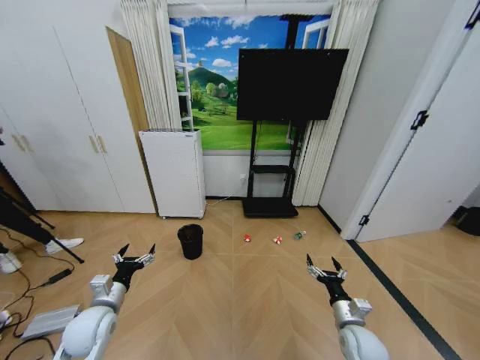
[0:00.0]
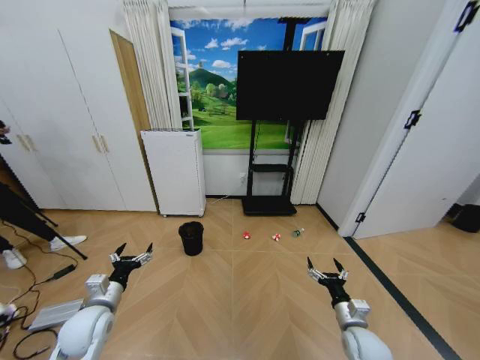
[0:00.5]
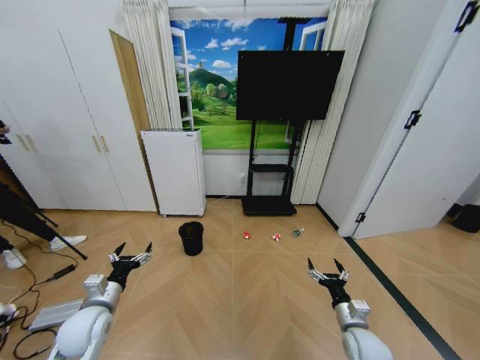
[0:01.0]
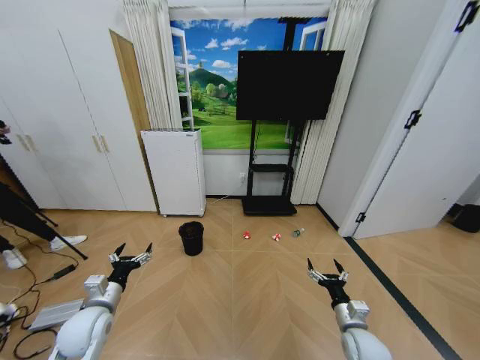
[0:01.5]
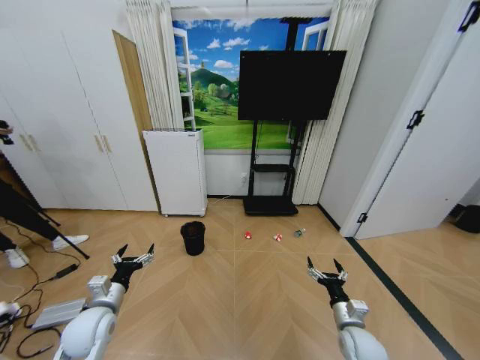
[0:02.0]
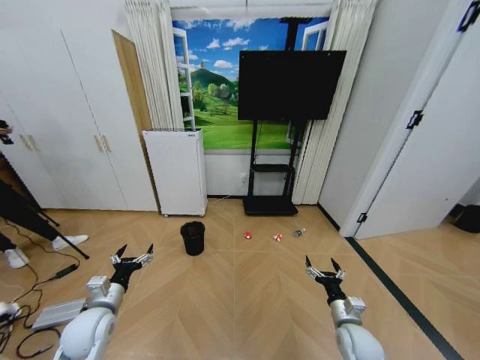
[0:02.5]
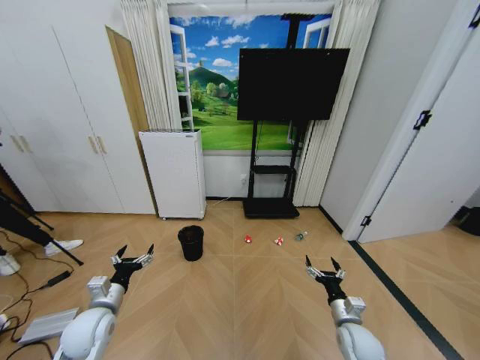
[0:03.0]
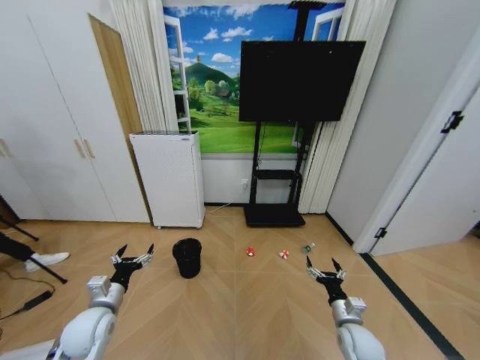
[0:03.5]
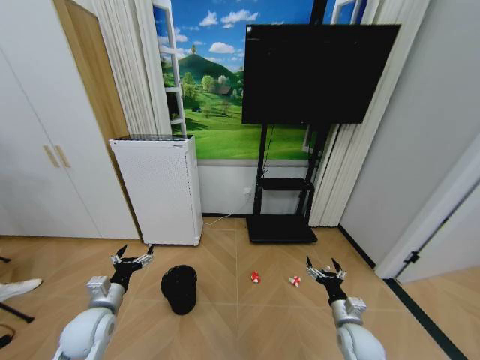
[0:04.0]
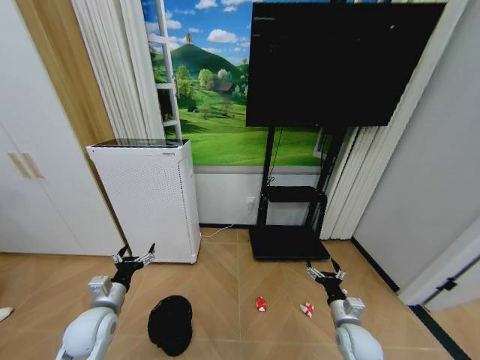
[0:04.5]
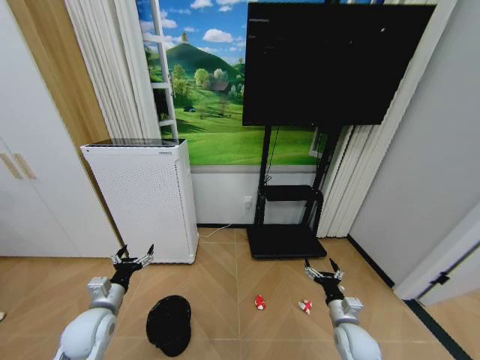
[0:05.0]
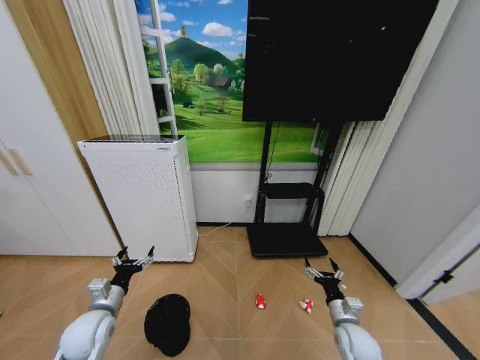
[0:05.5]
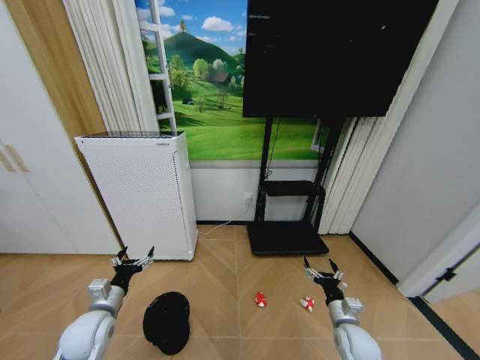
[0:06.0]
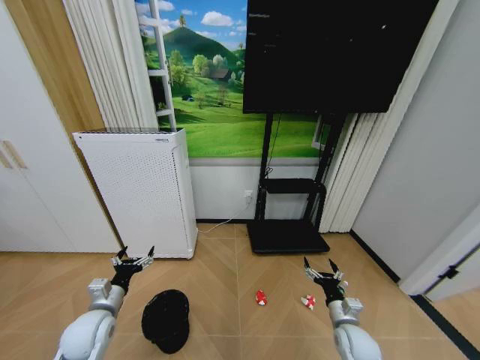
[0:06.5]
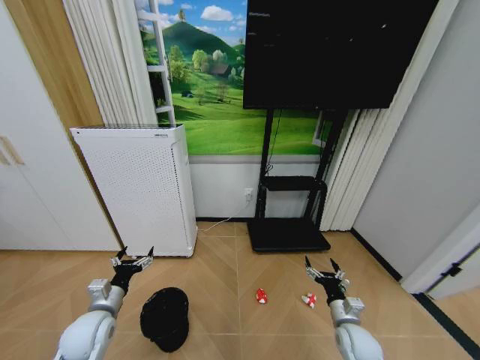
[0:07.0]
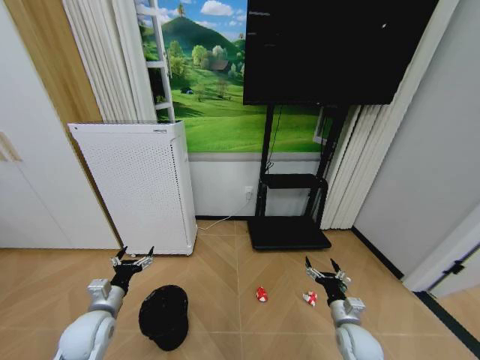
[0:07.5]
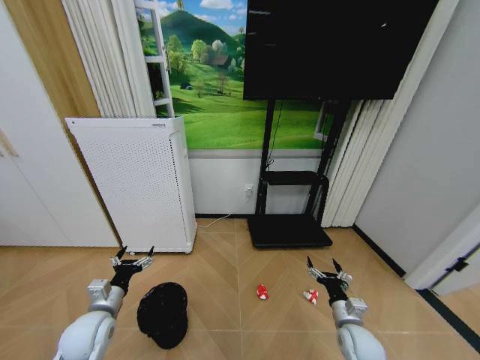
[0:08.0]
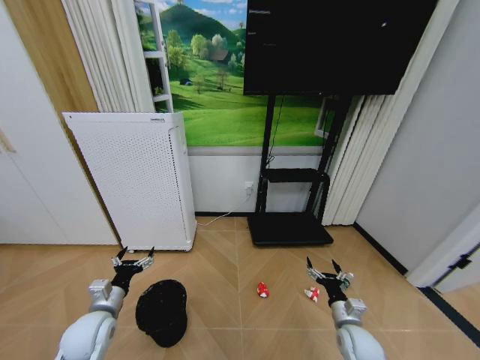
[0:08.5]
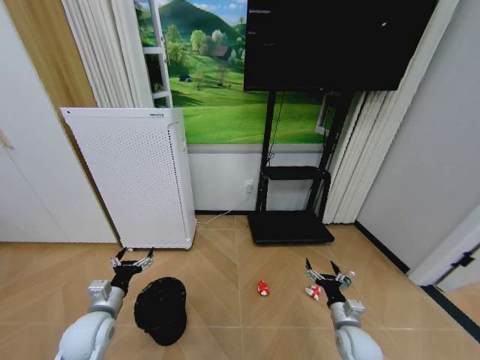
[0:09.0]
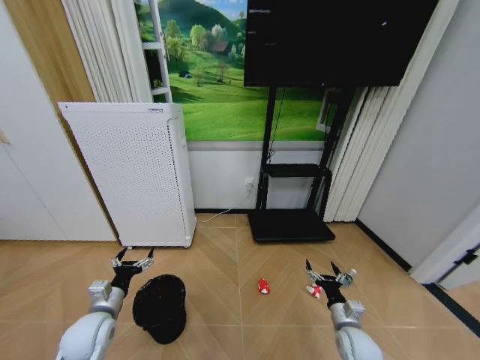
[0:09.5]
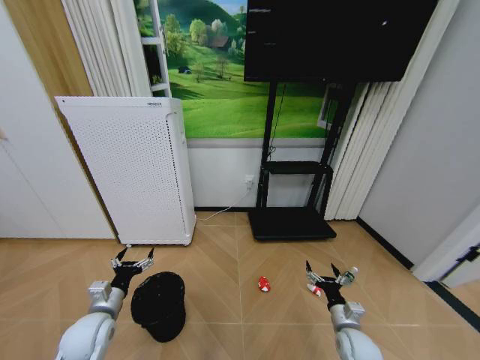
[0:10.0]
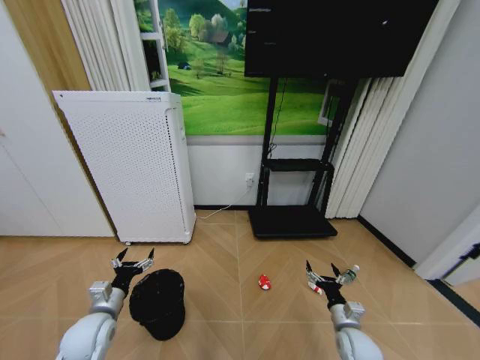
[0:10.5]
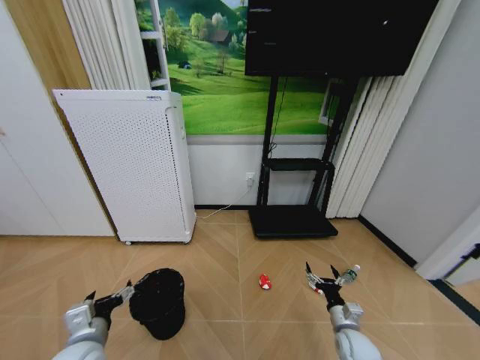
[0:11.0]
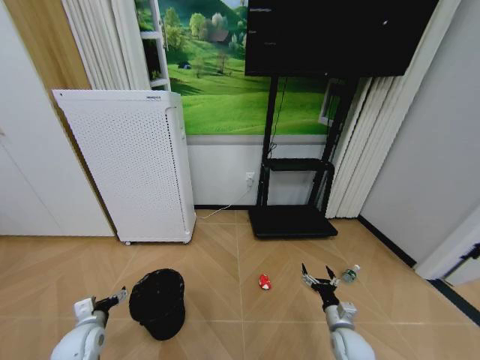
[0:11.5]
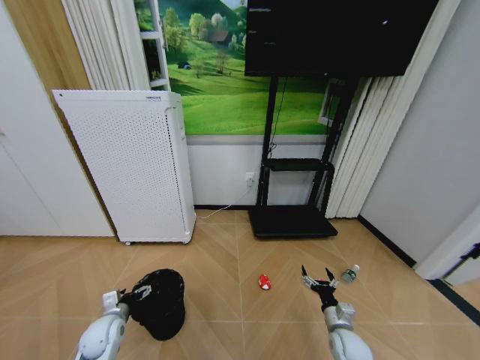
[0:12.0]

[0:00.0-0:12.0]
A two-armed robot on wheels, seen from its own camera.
Task of the whole recording: Pick up the trash bin and place the garbage on the floor into it.
0:06.0 to 0:08.0: Neither gripper changes place.
0:08.0 to 0:10.0: The grippers move only a little.
0:10.0 to 0:12.0: The left gripper heads downward, covering some 10 cm.

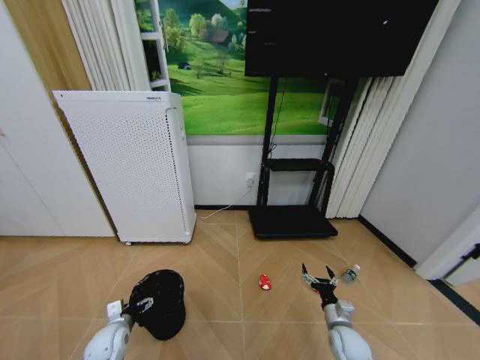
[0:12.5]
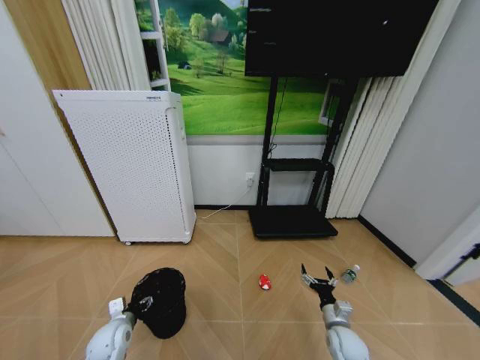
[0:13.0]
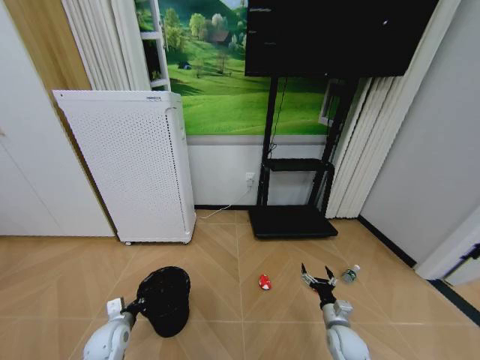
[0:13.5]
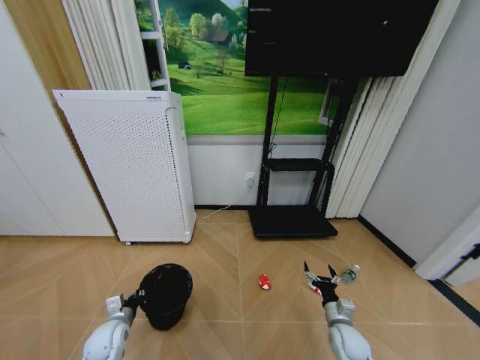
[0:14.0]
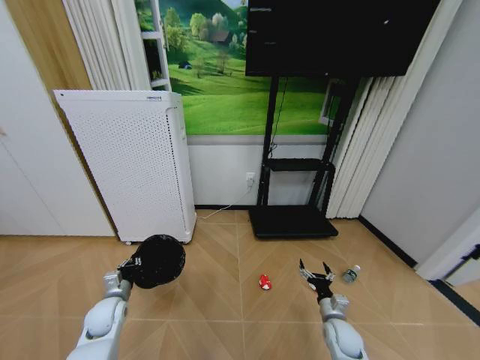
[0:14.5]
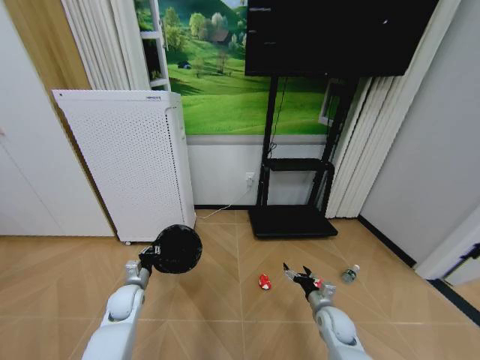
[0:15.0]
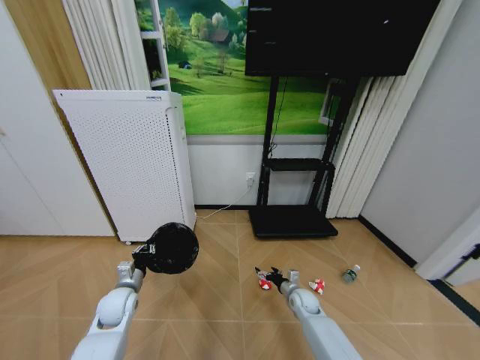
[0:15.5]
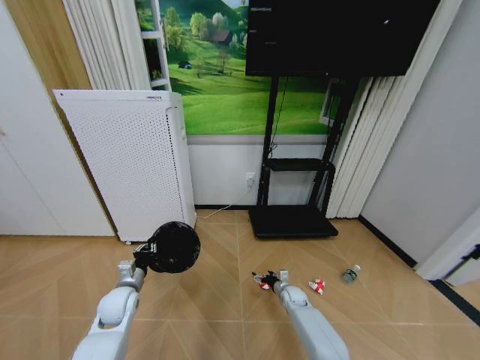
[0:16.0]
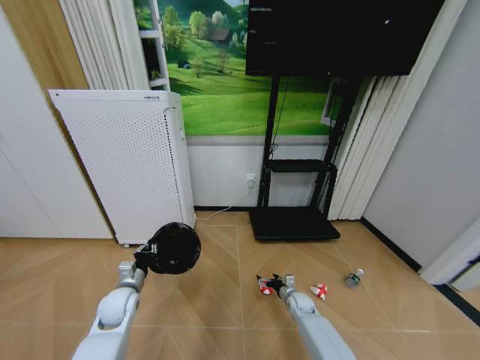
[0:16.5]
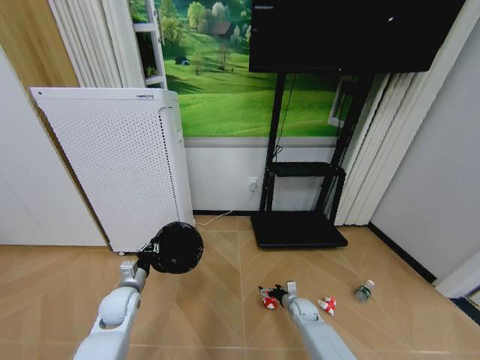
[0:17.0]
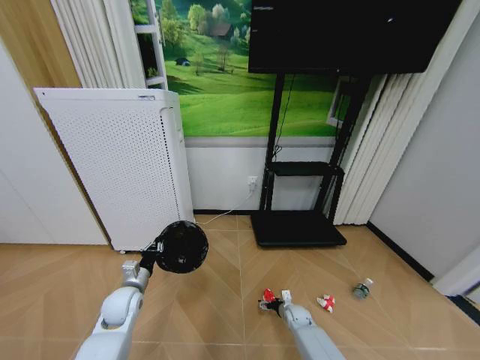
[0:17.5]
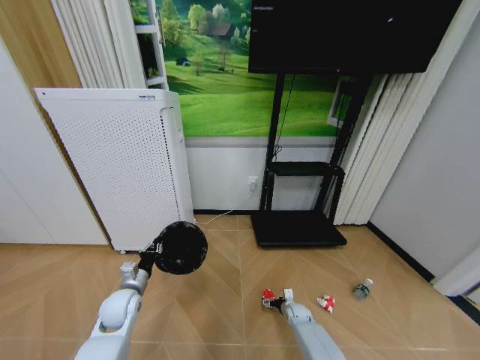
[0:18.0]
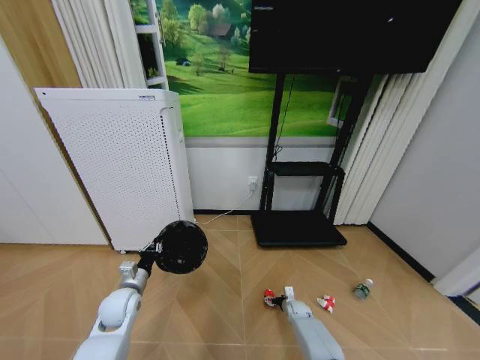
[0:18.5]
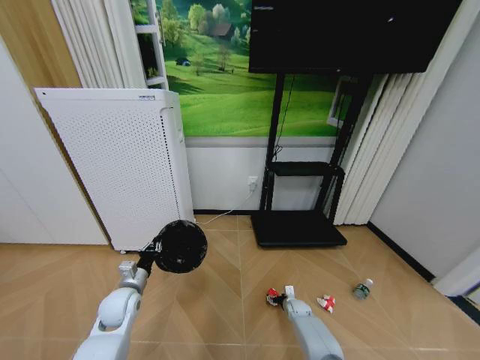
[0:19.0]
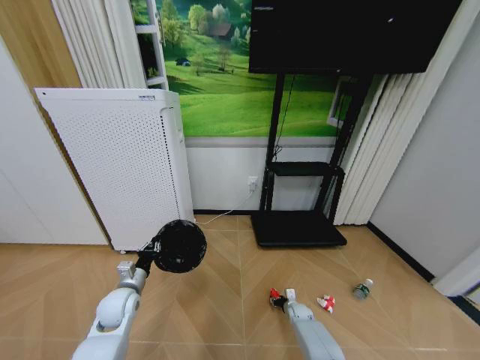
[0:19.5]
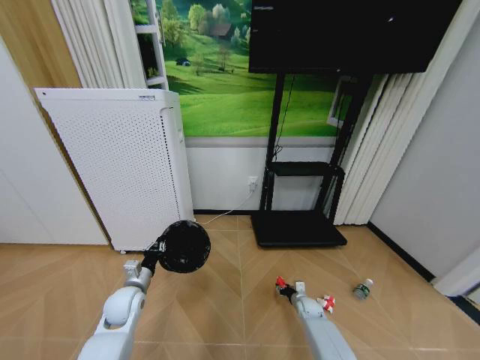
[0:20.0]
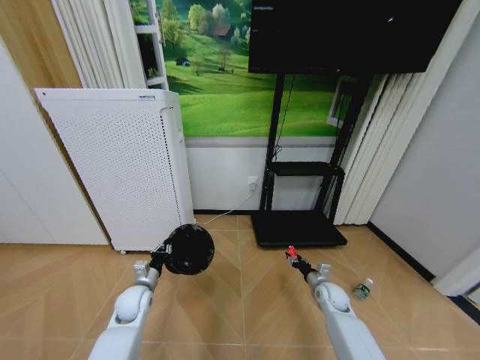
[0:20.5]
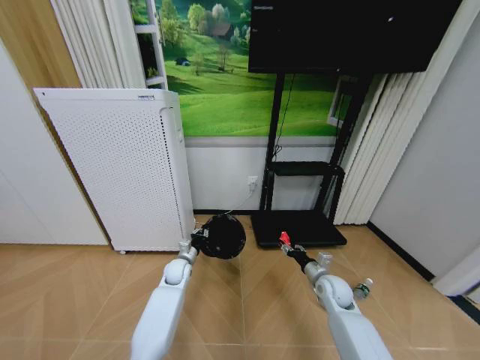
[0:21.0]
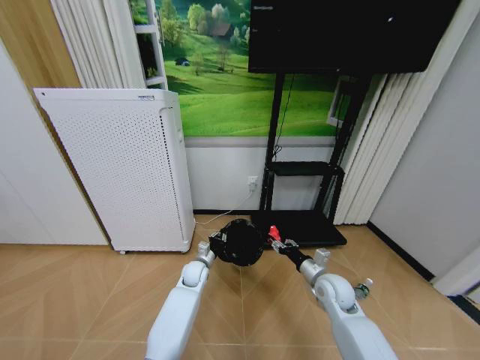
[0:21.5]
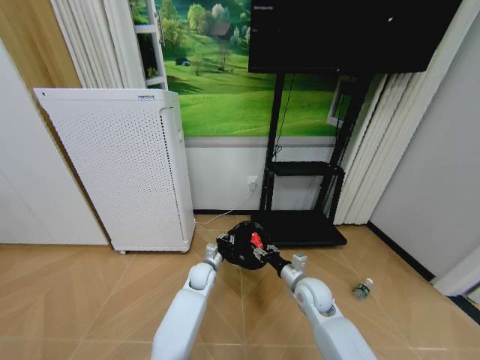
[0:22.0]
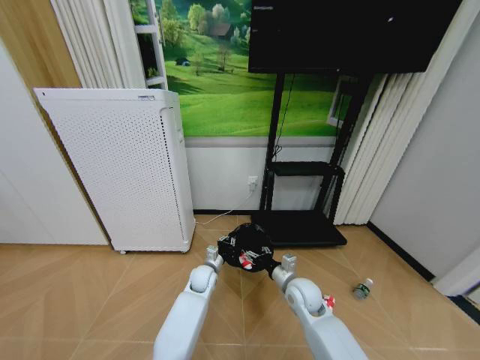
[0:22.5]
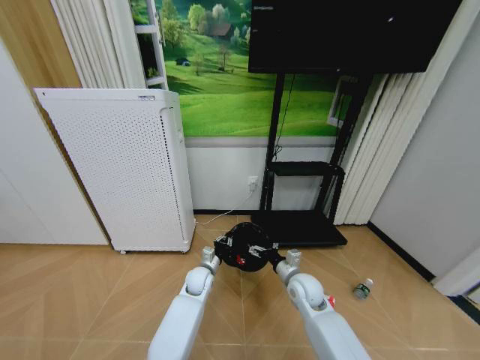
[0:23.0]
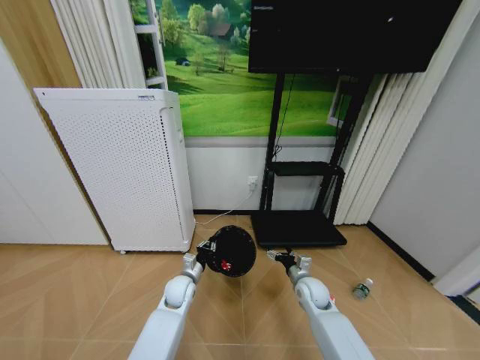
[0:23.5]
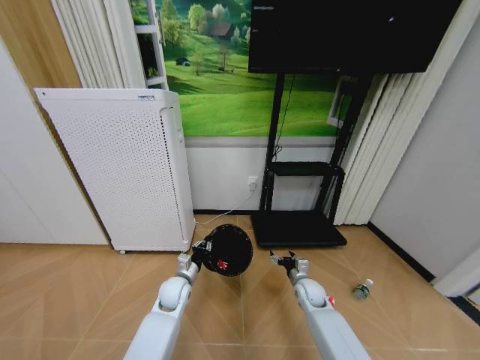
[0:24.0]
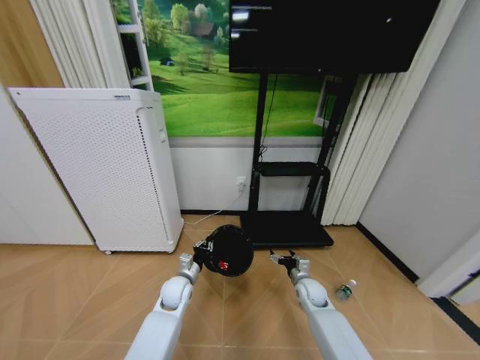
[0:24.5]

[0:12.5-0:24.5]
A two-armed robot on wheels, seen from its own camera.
Task of the whole recording: Pick up the trash bin and place the garbage on the floor into it.
0:12.5 to 0:14.5: The left gripper is displaced forward by some 5 cm, and closes.
0:14.5 to 0:16.5: The left gripper changes place by roughly 5 cm. The right gripper travels forward, downward and to the left by about 15 cm.
0:16.5 to 0:18.5: The right gripper is displaced downward by some 5 cm.
0:18.5 to 0:20.5: The right gripper is displaced upward by about 15 cm, and closes.
0:20.5 to 0:22.5: The right gripper goes about 15 cm to the left and upward, while the left gripper goes about 20 cm to the right and forward.
0:22.5 to 0:24.5: The right gripper heads downward and to the right, covering some 10 cm, and opens, while the left gripper moves to the left and backward, roughly 10 cm.

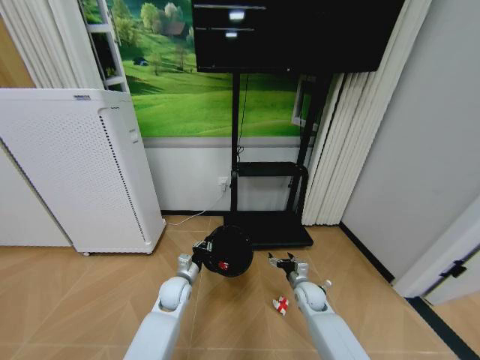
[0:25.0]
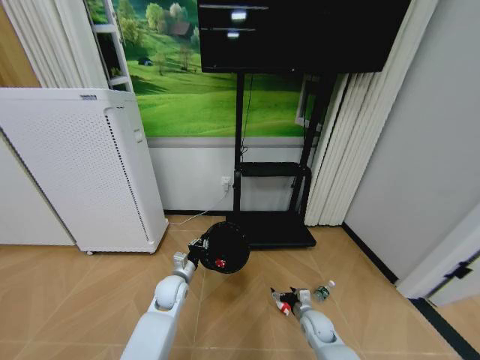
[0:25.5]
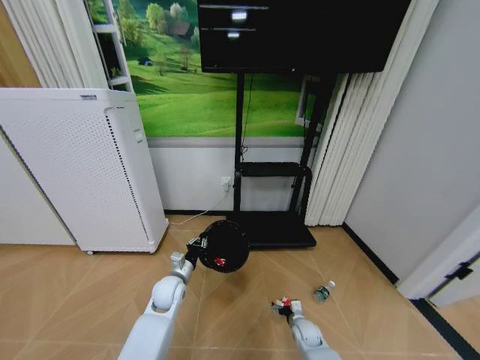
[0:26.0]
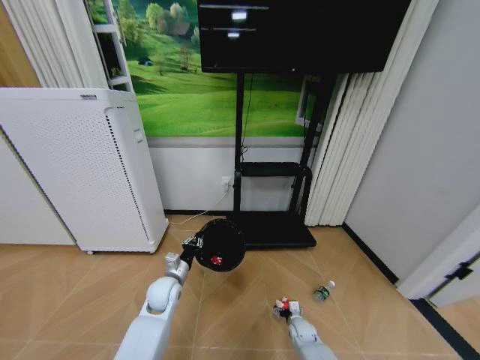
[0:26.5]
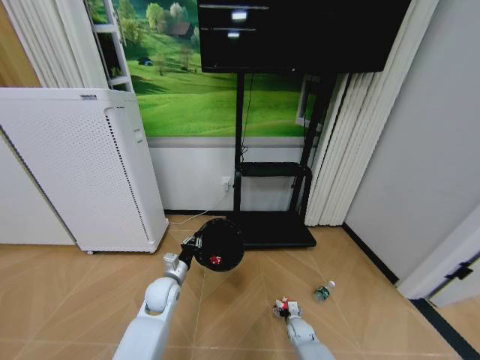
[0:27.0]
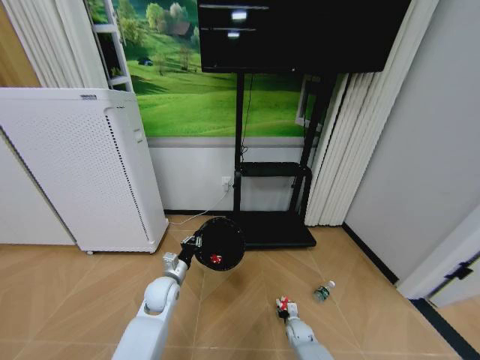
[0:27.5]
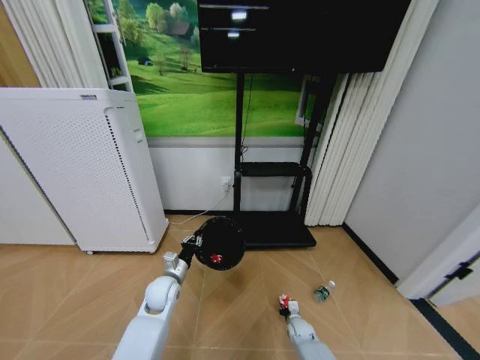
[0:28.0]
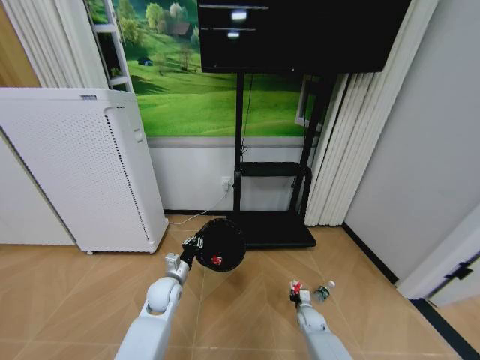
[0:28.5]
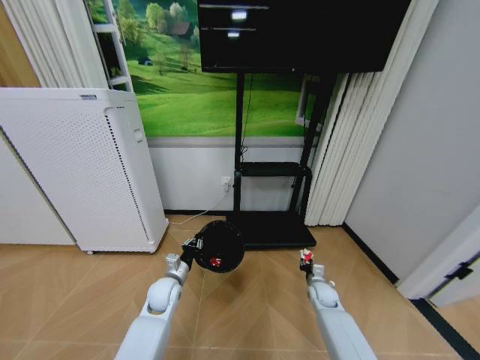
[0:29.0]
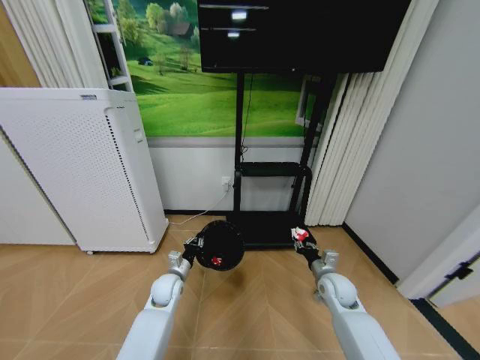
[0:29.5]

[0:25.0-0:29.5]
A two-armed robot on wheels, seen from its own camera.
Task of the whole recording: Pick up the trash bin and place the garbage on the floor into it.
0:25.0 to 0:27.0: The right gripper moves downward, some 15 cm.
0:27.0 to 0:29.5: The right gripper shifts roughly 25 cm upward, and closes.
